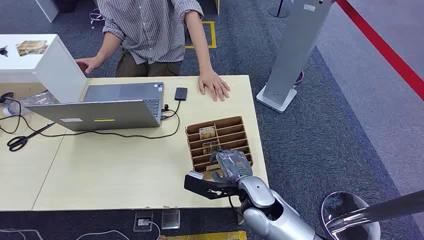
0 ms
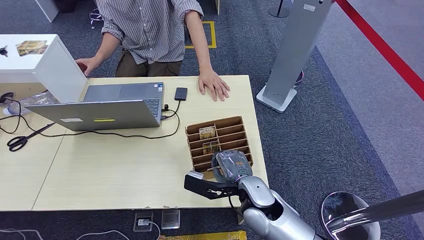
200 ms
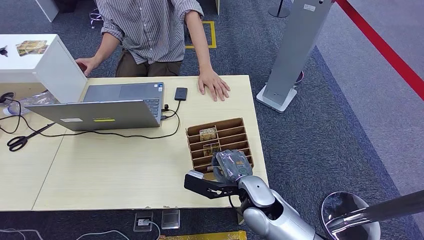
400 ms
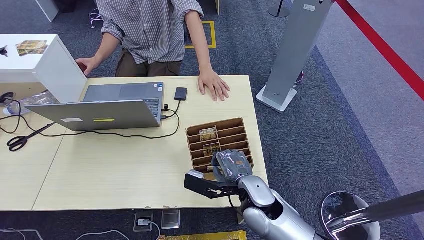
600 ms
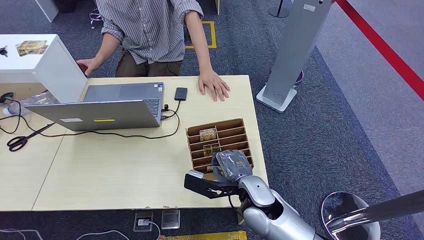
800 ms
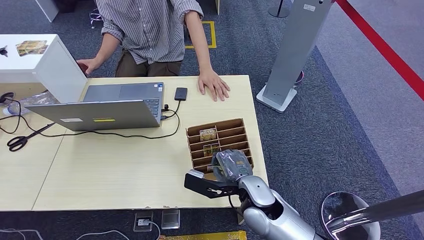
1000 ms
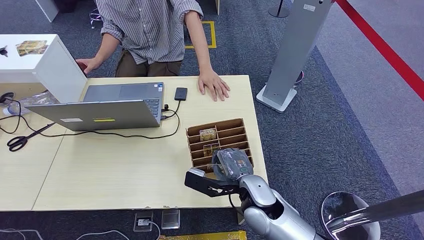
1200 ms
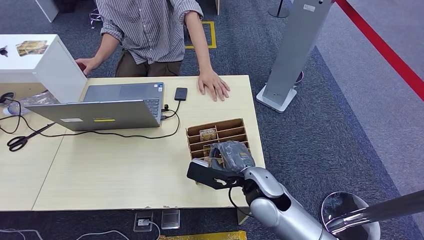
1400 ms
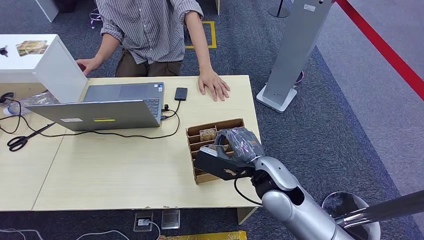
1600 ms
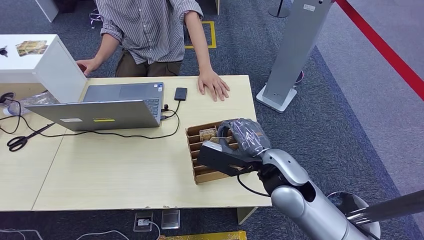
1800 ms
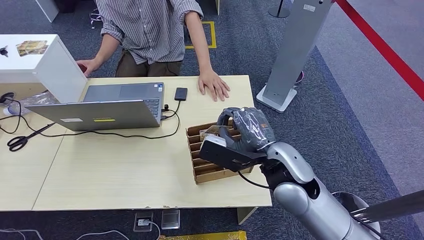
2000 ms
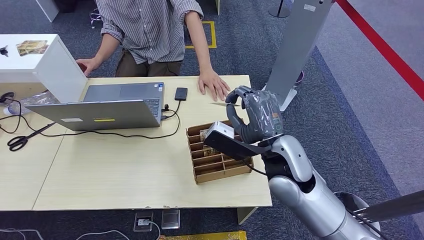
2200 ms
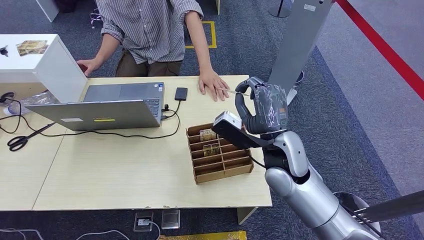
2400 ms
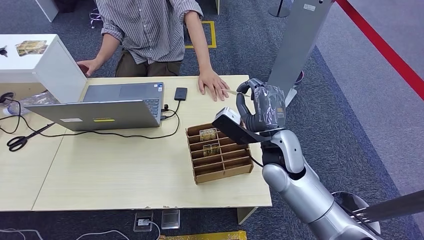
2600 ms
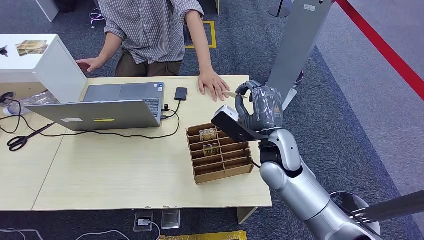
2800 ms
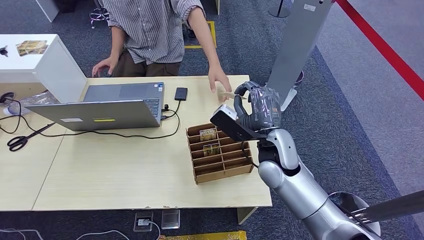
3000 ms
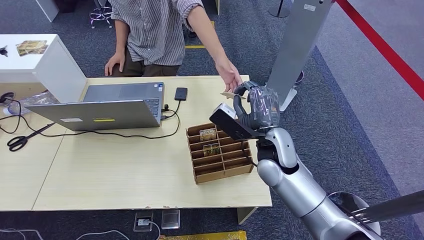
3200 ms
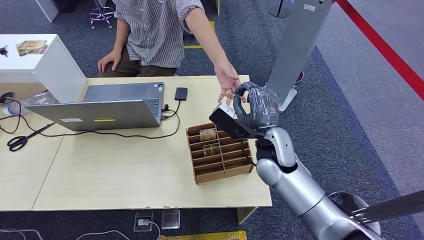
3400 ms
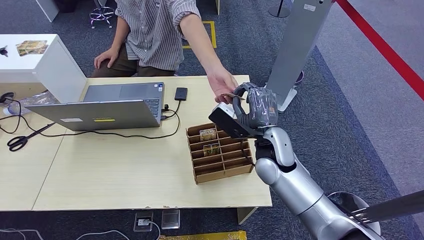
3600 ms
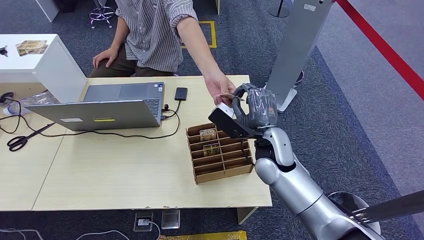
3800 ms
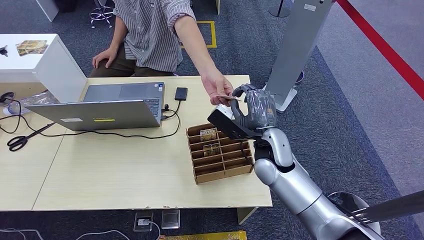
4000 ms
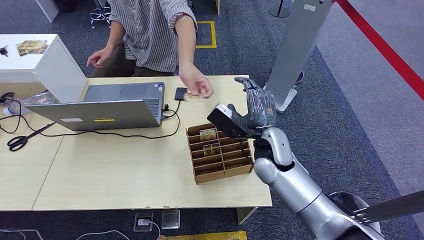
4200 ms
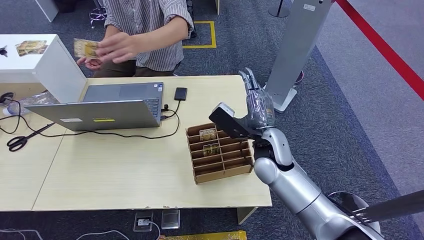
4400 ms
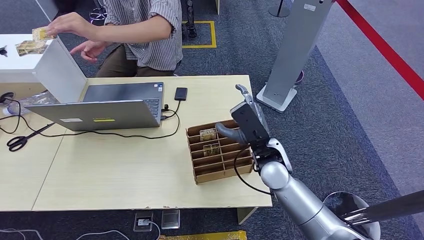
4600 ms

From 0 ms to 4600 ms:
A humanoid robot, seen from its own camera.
Step, from 0 ms to 1600 ms: Pick up the key card from the card box.
Step, from 2400 ms to 4600 ms: Hand the key card to the target.
From 1600 ms to 3000 ms: The right hand is displaced forward by approximately 5 cm.
